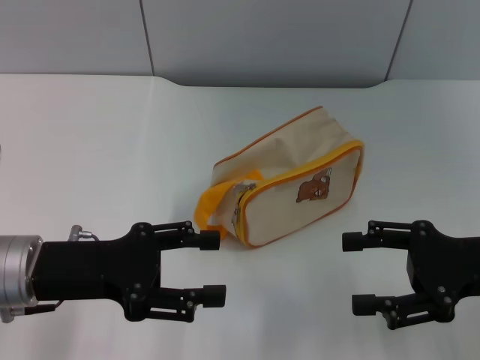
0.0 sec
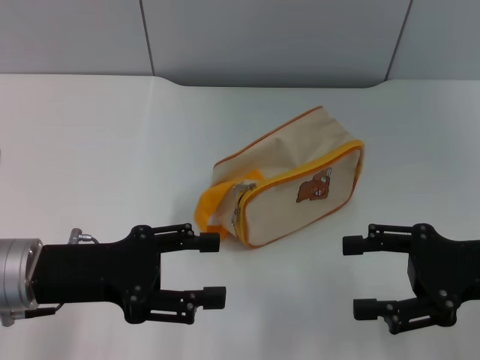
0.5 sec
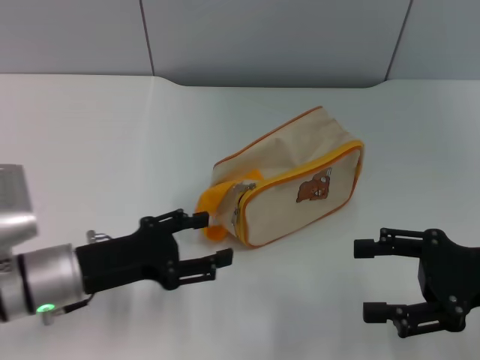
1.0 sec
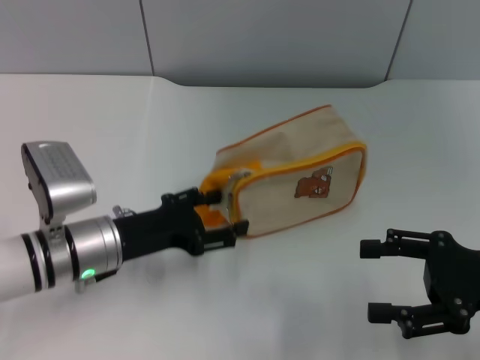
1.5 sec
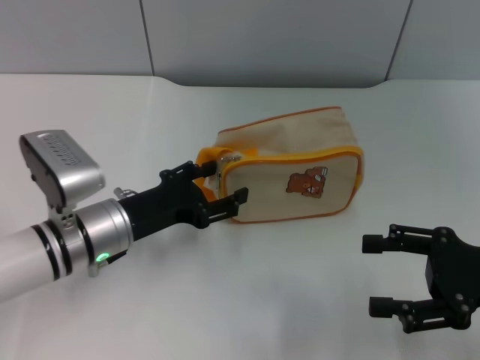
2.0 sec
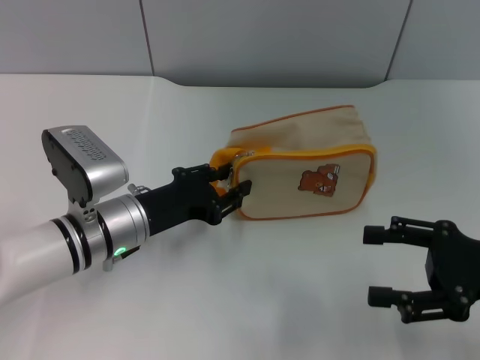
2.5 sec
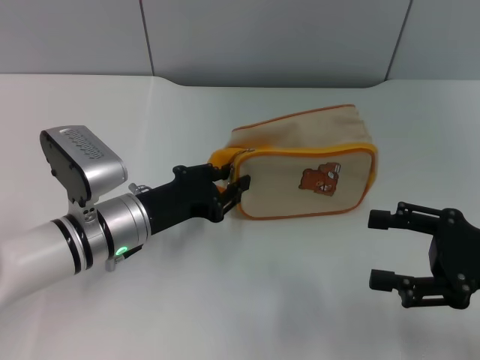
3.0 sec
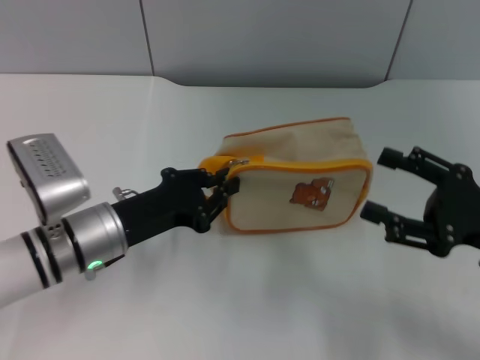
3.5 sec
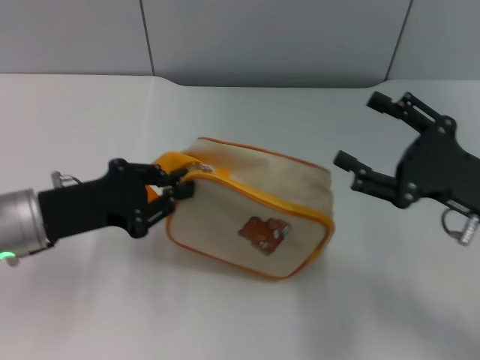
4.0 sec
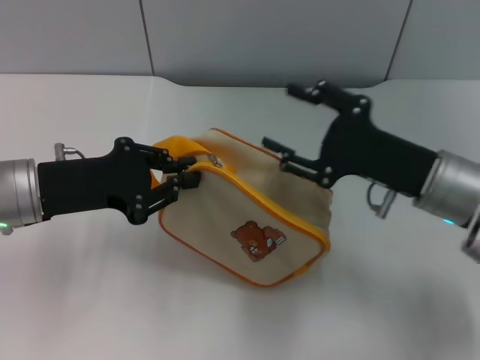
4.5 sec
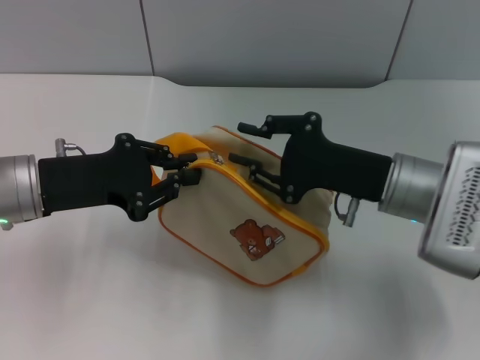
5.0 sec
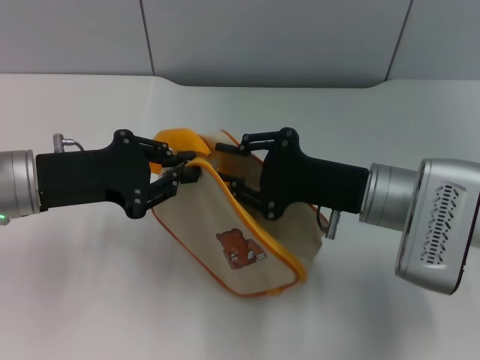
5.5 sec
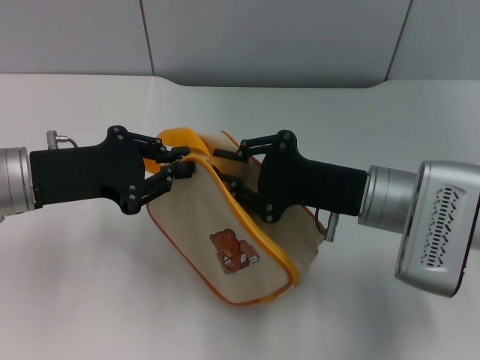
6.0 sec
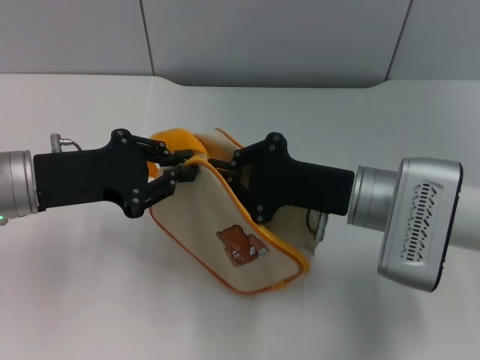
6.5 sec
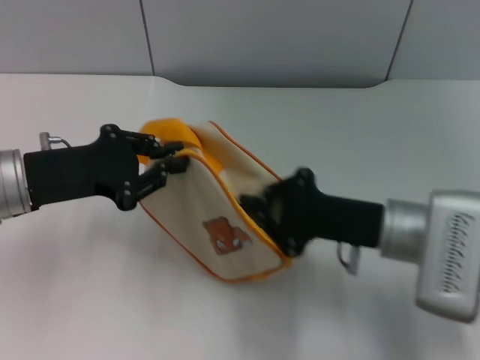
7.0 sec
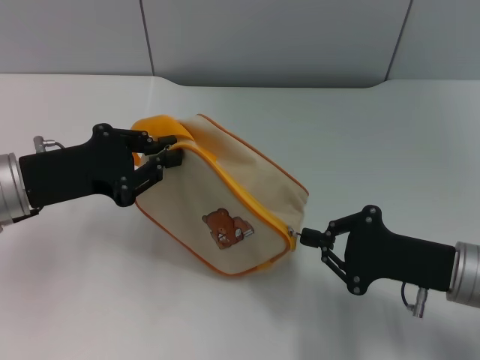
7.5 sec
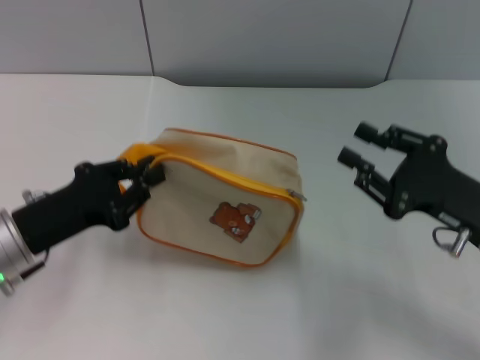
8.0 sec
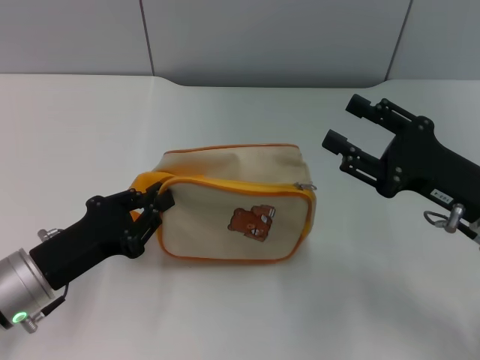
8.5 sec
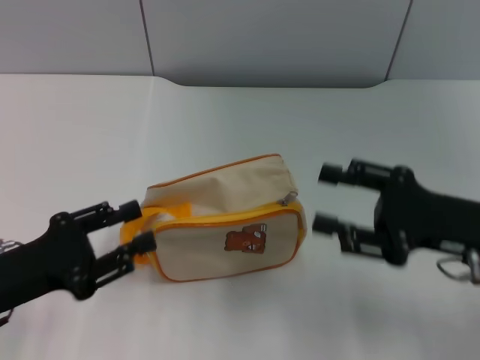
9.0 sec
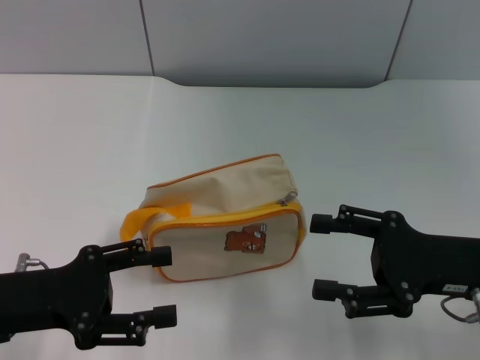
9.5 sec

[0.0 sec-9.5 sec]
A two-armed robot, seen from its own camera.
Step, 0.0 sec to 4.0 sec: Pick up the bag with left gripper.
Step, 4.5 sec to 7.5 sec: Unzip the zipper of bag with right gripper.
Step, 8.0 sec to 9.0 sec: Place the bag on the table with left gripper.
0.0 sec to 2.0 sec: The left gripper shifts roughly 10 cm downward, to the right and forward.
2.0 sec to 4.0 sec: The left gripper is displaced to the left by roughly 5 cm, and closes its fingers. Meanwhile the right gripper shifts by approximately 5 cm.
4.0 sec to 5.5 sec: The right gripper travels to the left by roughly 10 cm, and closes up.
5.5 sec to 7.5 sec: The right gripper goes about 10 cm to the right and backward, and closes up.
7.5 sec to 9.5 sec: The left gripper shifts approximately 10 cm backward, and opens its fingers; the right gripper opens.

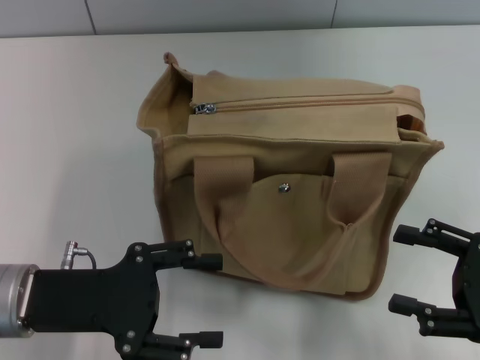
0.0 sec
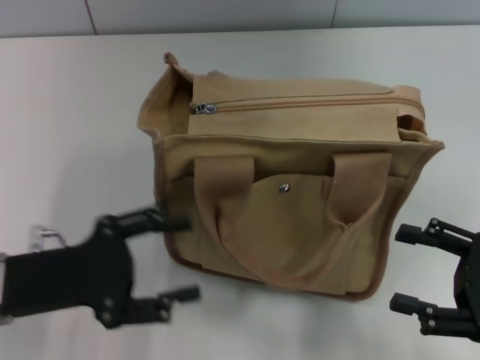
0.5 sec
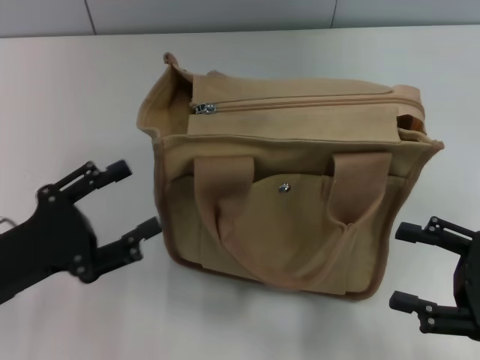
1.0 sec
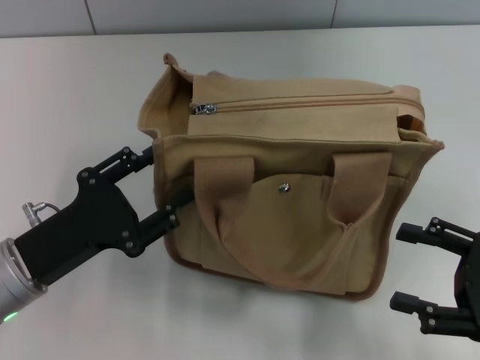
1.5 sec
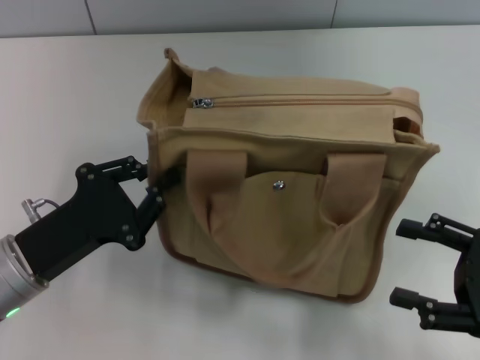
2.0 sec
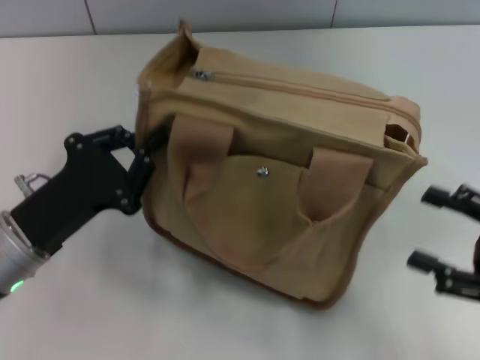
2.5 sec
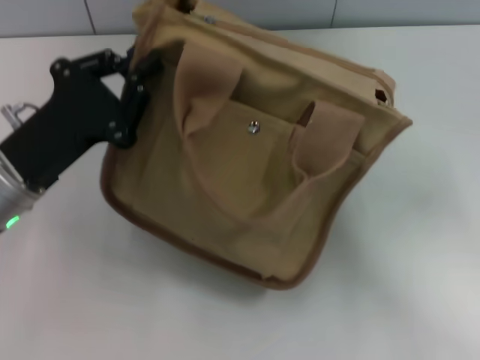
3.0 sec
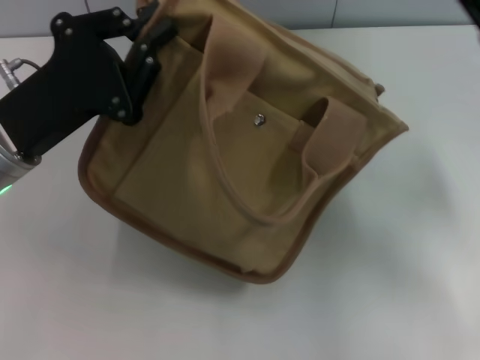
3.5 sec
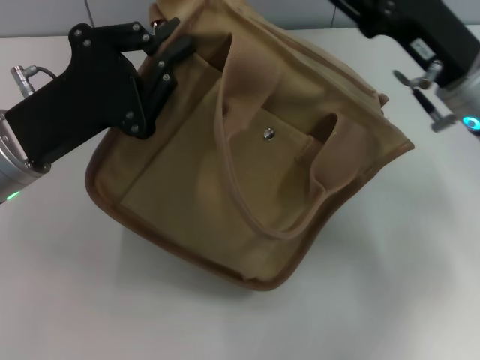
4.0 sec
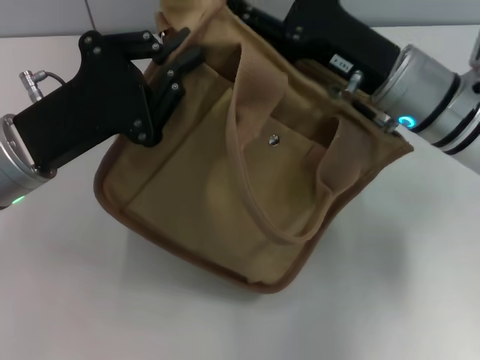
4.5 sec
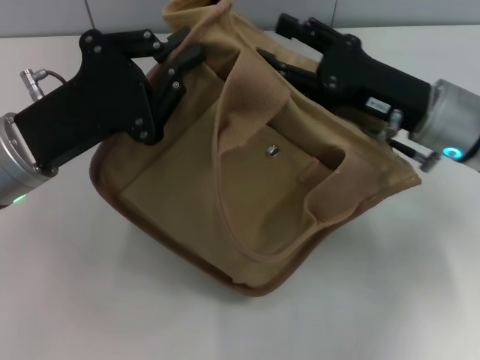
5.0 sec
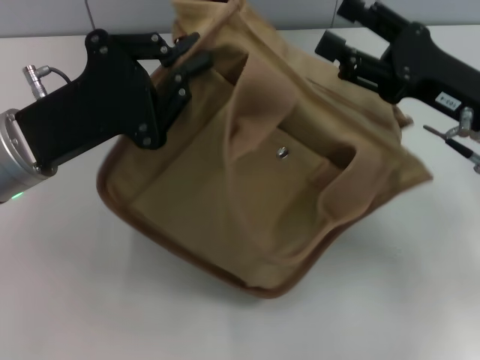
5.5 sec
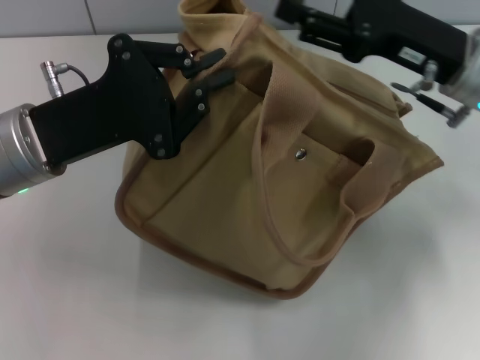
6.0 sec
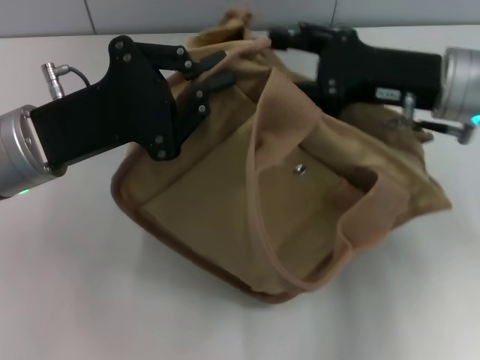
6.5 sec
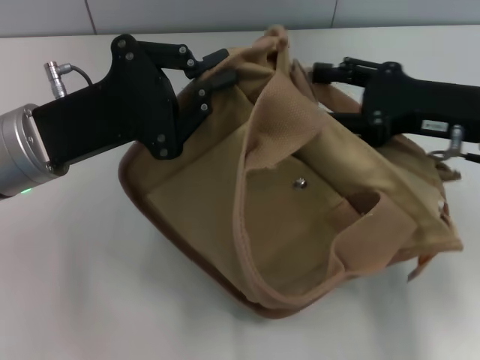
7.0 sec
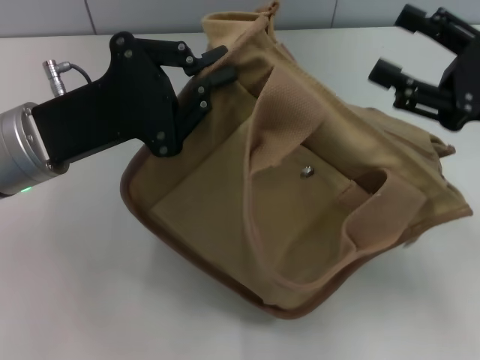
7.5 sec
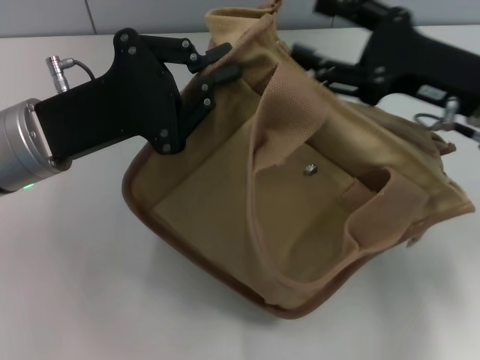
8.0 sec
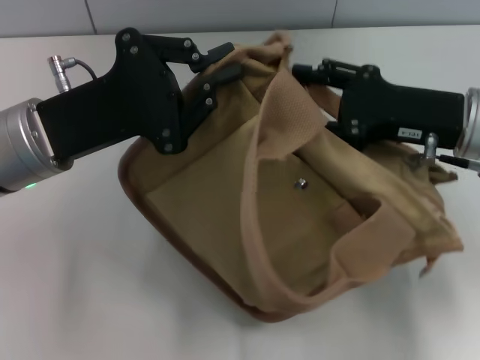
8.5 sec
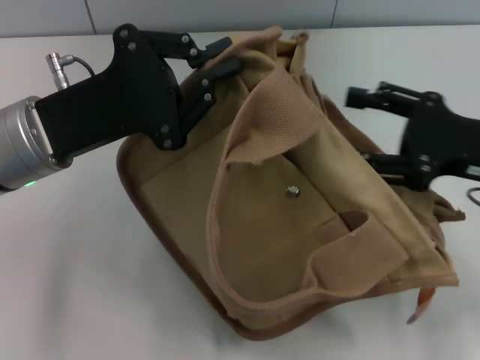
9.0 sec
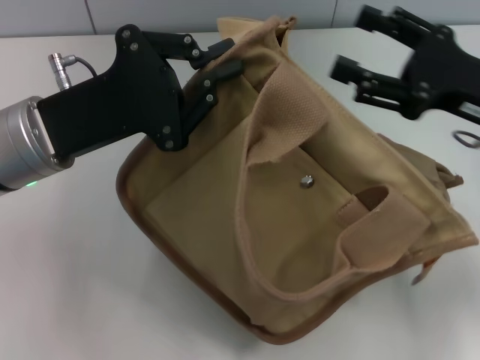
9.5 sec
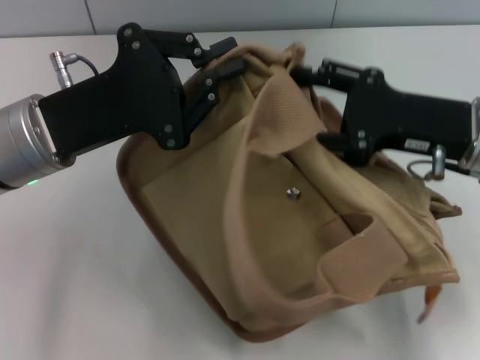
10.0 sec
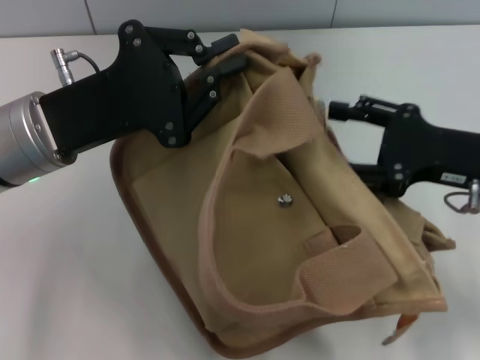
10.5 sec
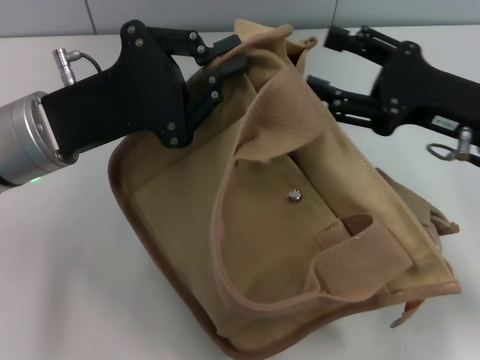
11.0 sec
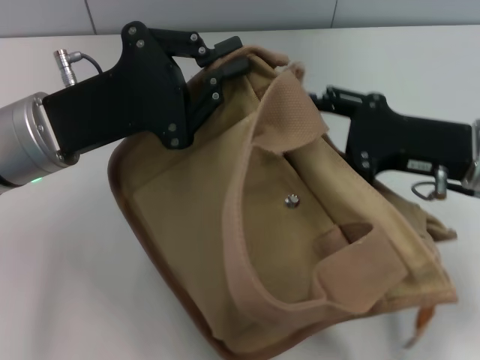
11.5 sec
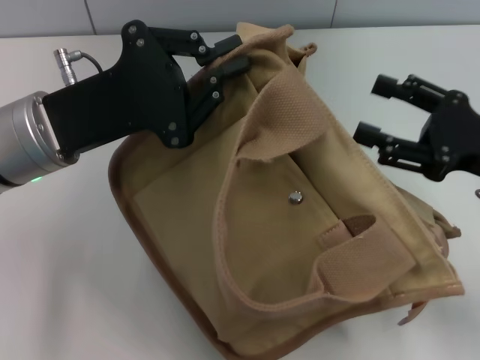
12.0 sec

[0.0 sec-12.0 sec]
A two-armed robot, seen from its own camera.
0.0 sec to 2.0 sec: The left gripper closes its fingers.
2.0 sec to 4.0 sec: The left gripper goes approximately 10 cm upward and forward; the right gripper is displaced forward, to the left and upward by roughly 20 cm.
4.0 sec to 6.0 sec: The right gripper reaches approximately 5 cm to the left, then returns.
10.0 sec to 12.0 sec: The right gripper shifts approximately 5 cm to the right.

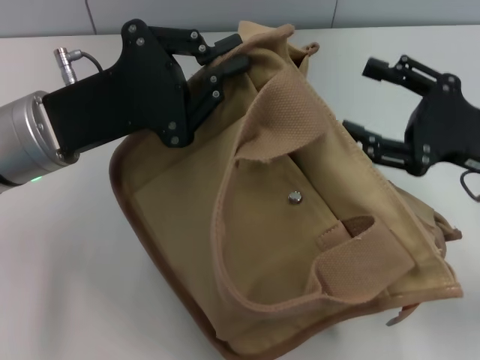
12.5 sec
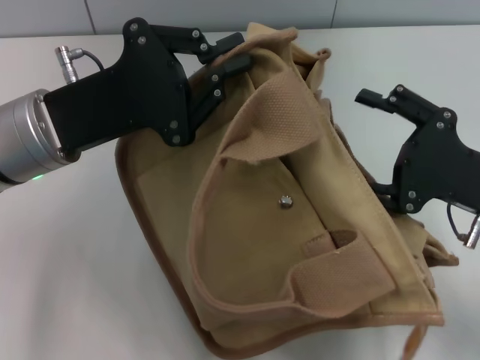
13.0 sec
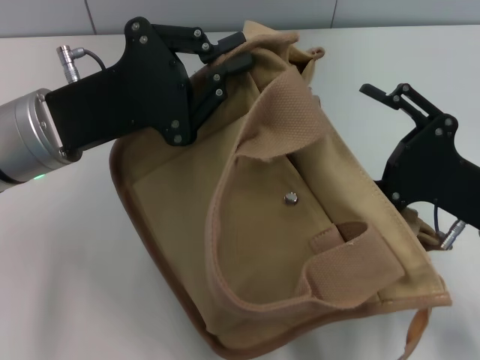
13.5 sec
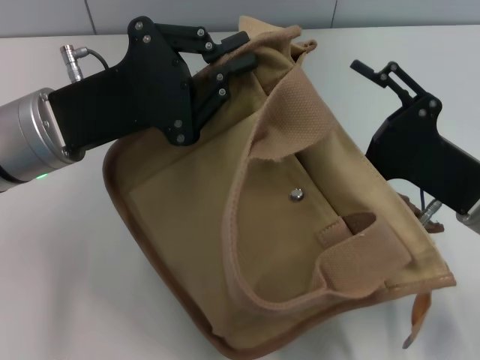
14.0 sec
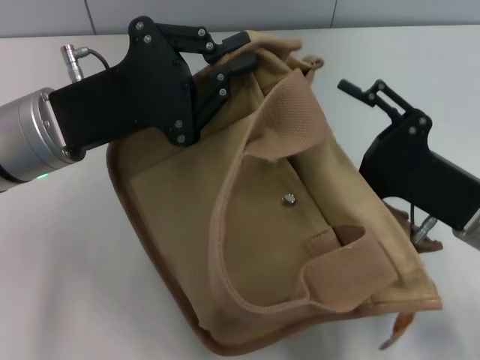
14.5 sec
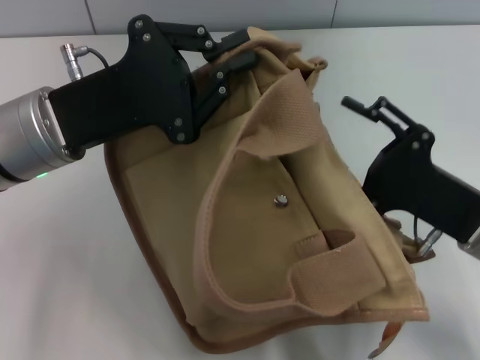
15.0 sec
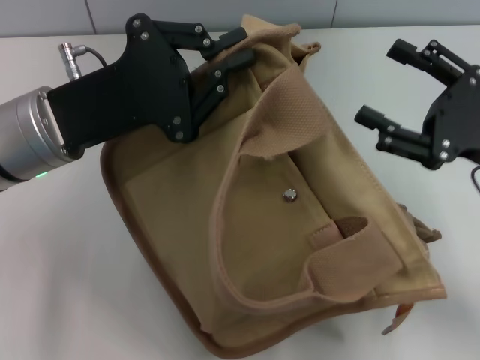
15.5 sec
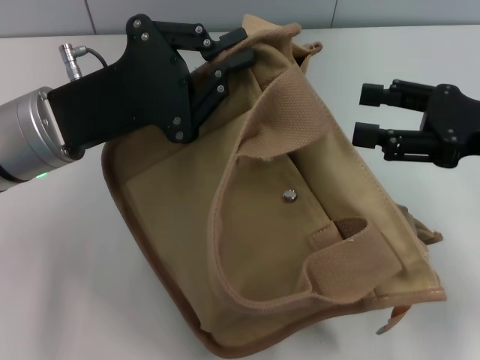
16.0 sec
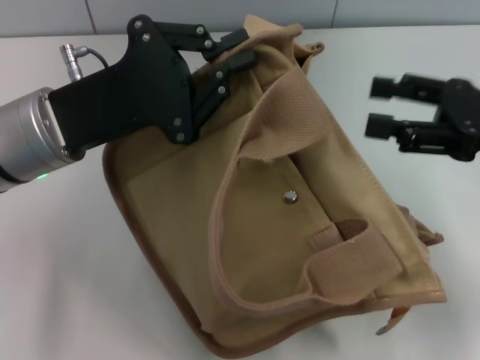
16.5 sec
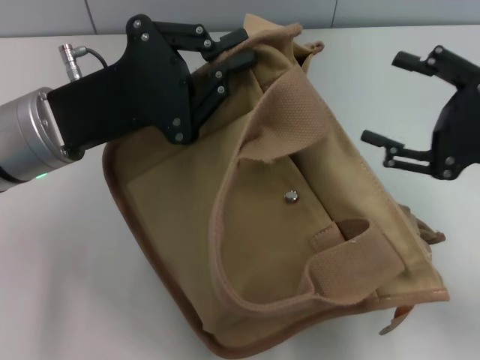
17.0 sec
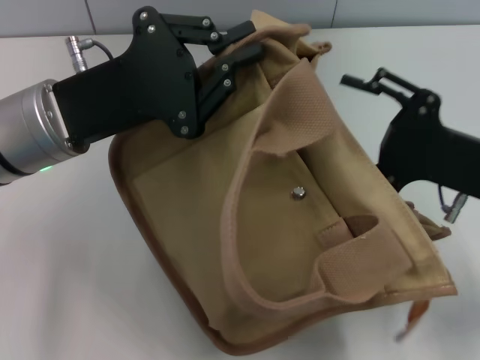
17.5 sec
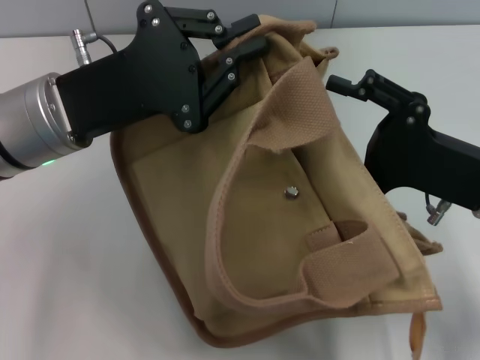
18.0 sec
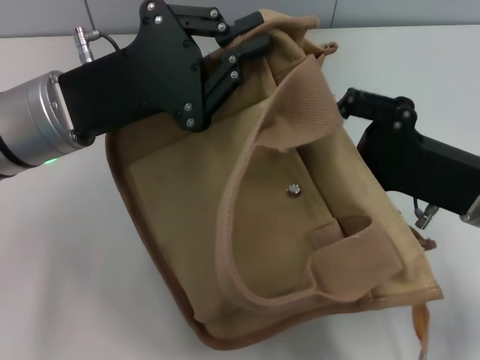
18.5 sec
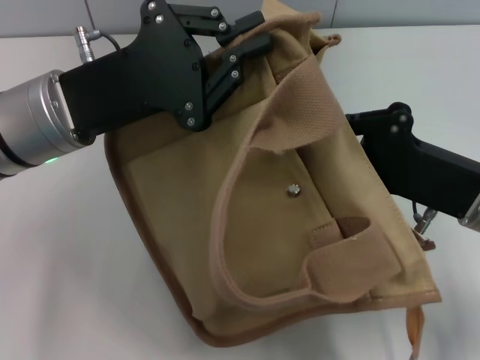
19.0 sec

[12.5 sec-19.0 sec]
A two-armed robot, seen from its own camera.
12.5 sec to 14.5 sec: The right gripper moves about 5 cm.
14.5 sec to 17.0 sec: The right gripper is displaced upward and to the right by about 10 cm.
17.0 sec to 19.0 sec: The right gripper shifts about 5 cm to the left, and closes.
